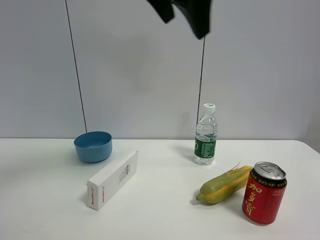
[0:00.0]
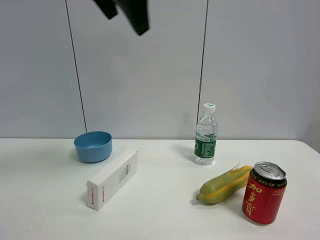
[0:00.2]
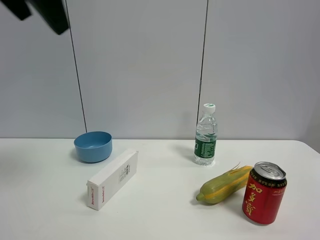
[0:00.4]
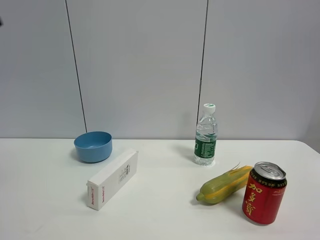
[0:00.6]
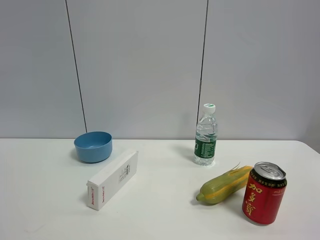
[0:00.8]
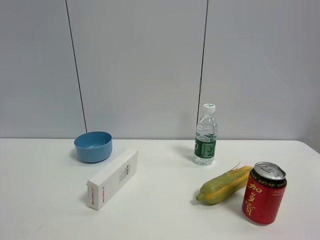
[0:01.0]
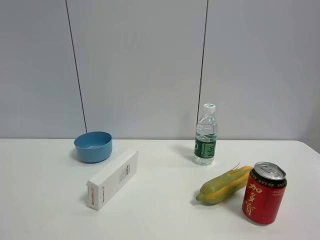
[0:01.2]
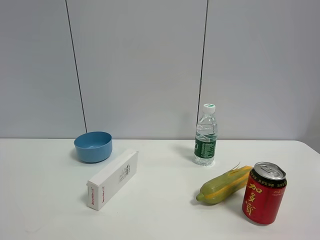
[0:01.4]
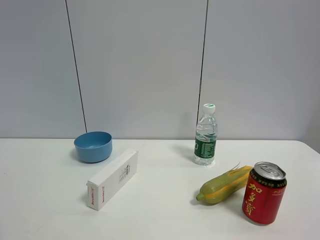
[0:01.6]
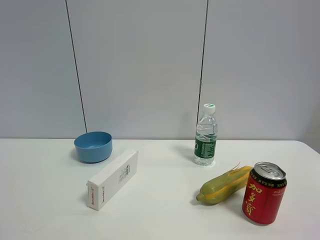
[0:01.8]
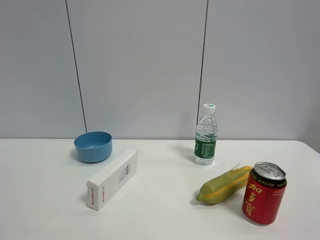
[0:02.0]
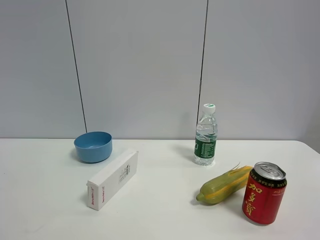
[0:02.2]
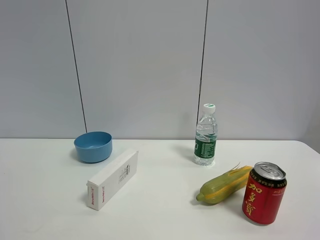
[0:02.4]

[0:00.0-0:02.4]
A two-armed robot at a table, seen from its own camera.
Task of the whole recording: the gripper move the object.
0:00.0 to 0:01.2: The left gripper goes approximately 40 cm backward and to the left.

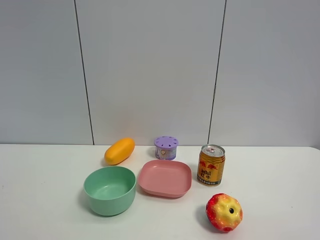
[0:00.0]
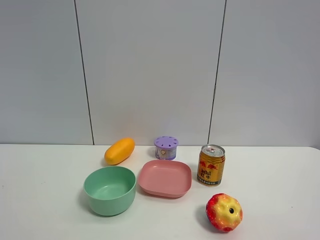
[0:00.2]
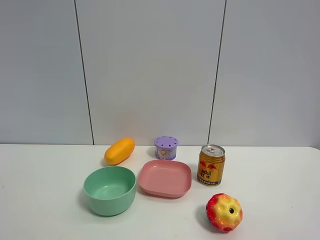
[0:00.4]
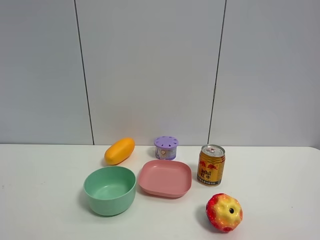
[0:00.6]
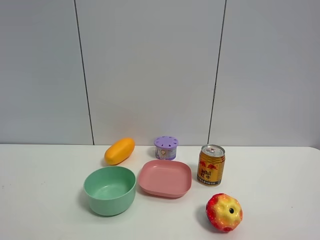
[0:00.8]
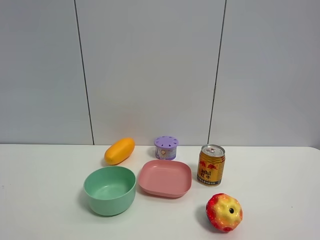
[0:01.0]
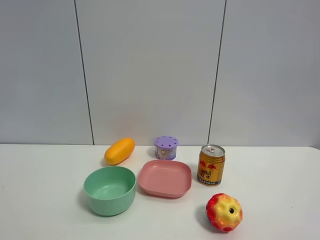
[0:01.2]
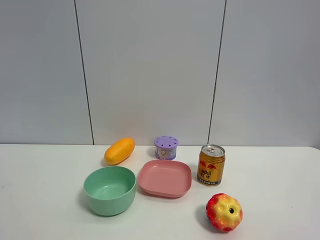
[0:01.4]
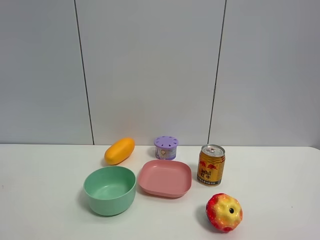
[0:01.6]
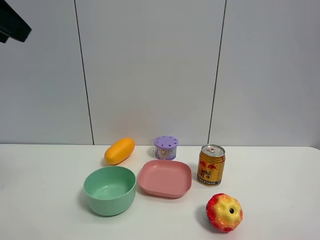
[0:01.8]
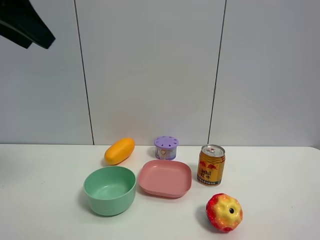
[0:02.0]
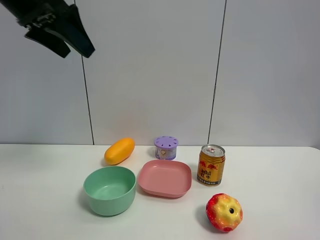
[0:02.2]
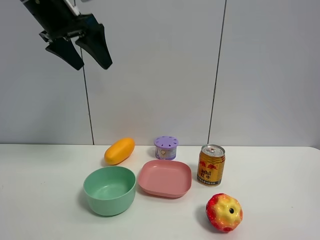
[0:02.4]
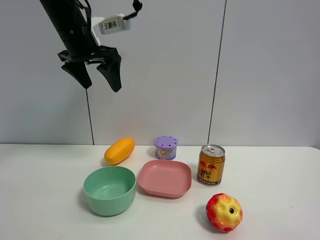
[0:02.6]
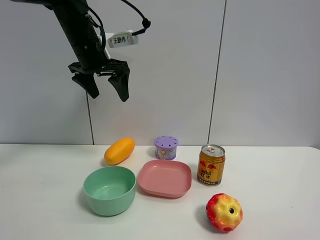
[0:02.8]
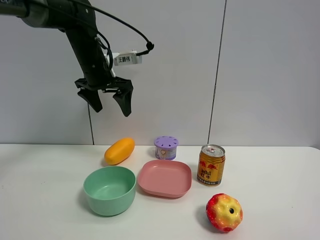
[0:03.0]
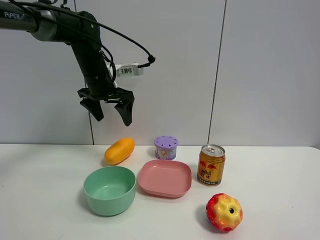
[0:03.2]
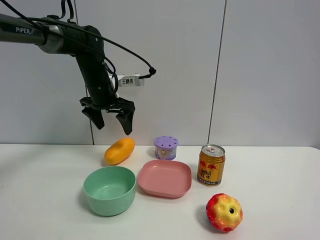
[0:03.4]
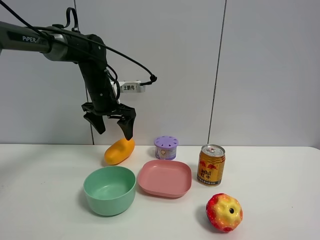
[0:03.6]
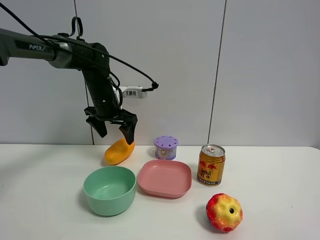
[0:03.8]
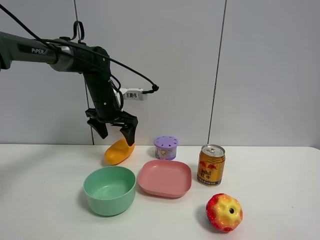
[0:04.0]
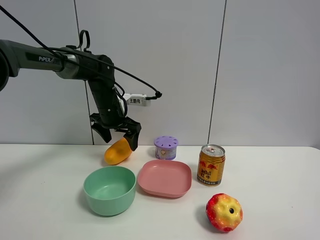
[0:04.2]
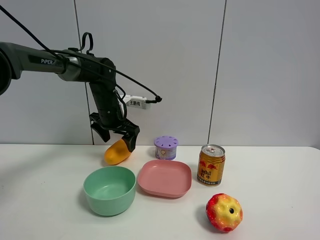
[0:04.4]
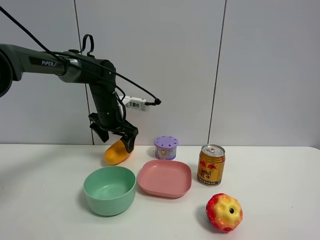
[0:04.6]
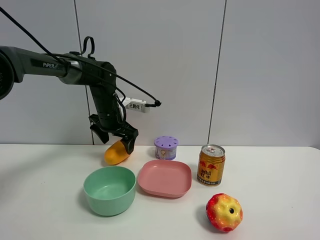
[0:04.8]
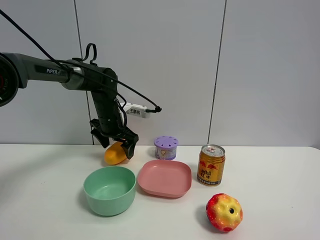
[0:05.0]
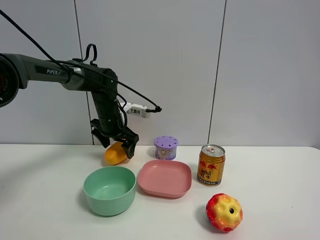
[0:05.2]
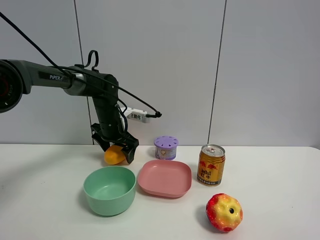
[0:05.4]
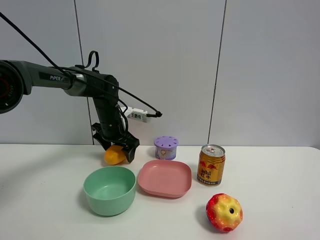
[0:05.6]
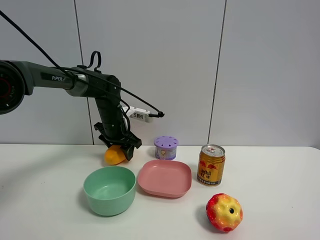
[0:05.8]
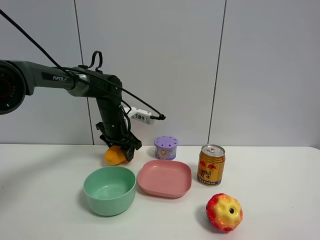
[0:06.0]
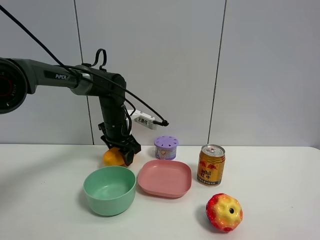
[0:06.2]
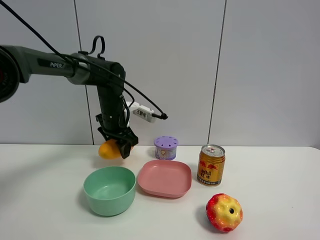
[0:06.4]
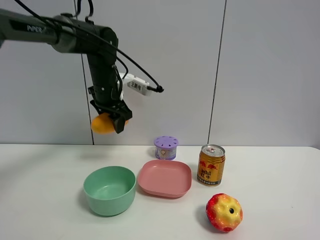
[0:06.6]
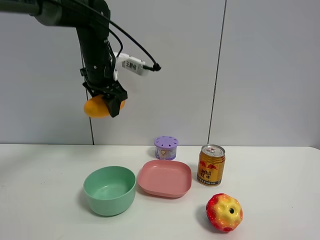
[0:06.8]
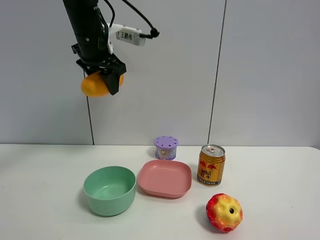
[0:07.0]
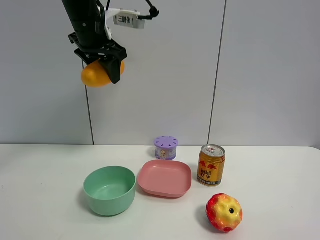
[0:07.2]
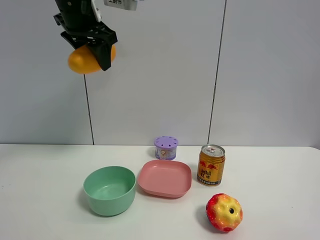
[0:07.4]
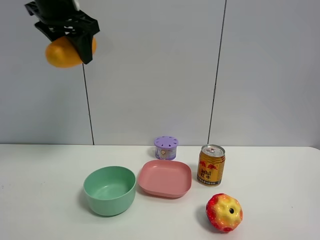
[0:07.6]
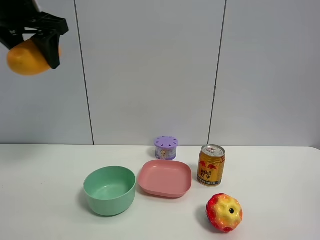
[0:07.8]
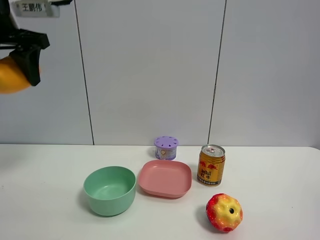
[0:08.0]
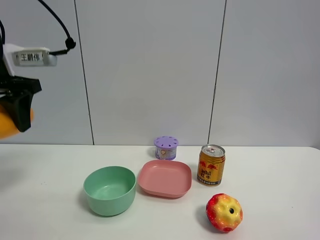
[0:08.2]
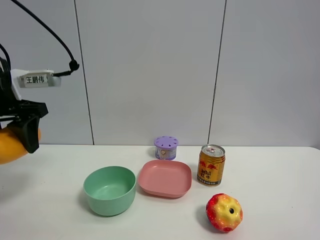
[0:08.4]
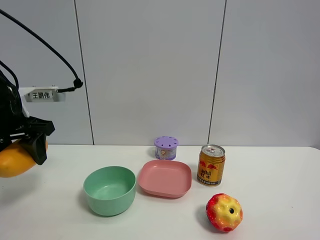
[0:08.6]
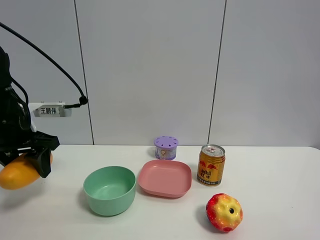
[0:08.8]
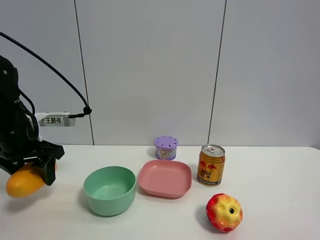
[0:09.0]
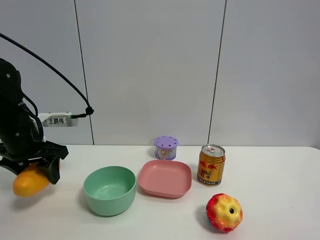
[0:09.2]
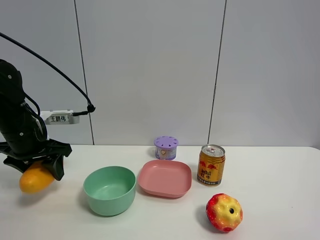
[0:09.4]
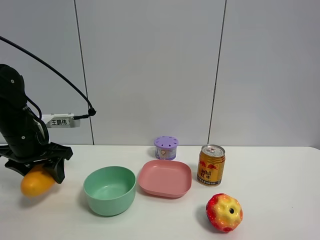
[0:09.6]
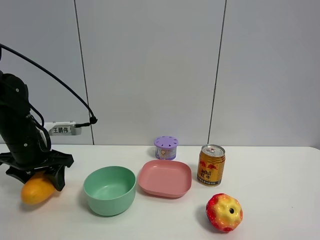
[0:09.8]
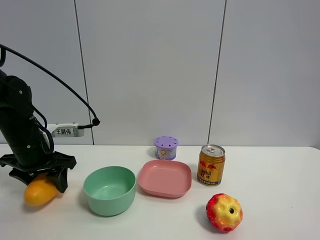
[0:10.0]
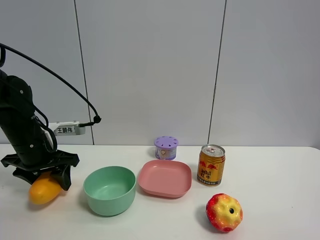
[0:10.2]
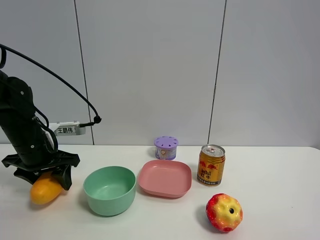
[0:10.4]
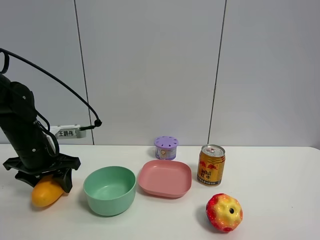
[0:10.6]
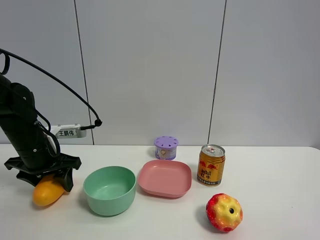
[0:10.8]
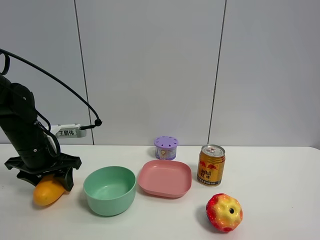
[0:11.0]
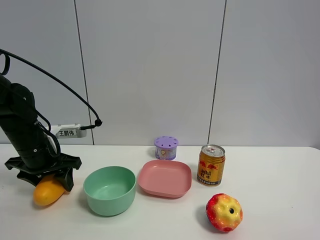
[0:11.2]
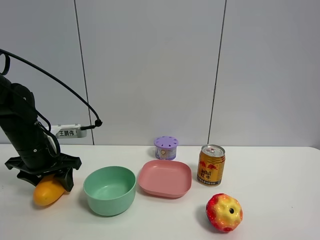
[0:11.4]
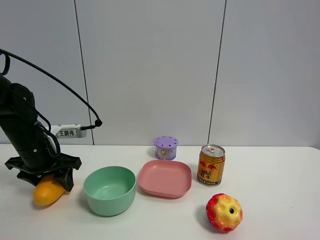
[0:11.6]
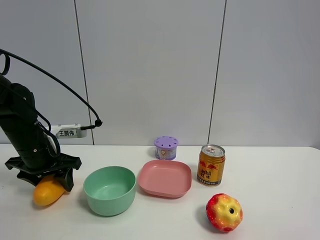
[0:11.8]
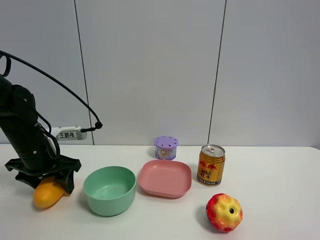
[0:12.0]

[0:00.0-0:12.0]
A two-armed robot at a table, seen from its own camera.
Task of the whole recording: the gripper move the object.
Step, 0:00.0 to 0:05.8: Grasp the mango with the left gripper.
0:01.6 to 0:03.0: The left gripper heads forward, downward and to the right, covering roughly 35 cm, and opens its fingers.
0:03.0 to 0:04.4: The left gripper goes approximately 10 cm downward.
0:04.4 to 0:06.0: The left gripper closes its fingers.
0:06.0 to 0:07.6: The left gripper is displaced upward and backward by some 30 cm.
0:07.6 to 0:09.0: The left gripper heads downward, covering roughly 25 cm.
0:09.0 to 0:10.4: The grippers move only a little.
0:10.4 to 0:12.0: Neither gripper changes place.

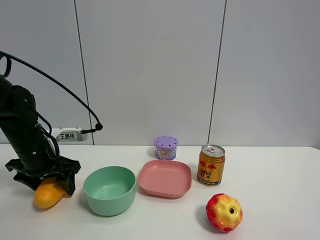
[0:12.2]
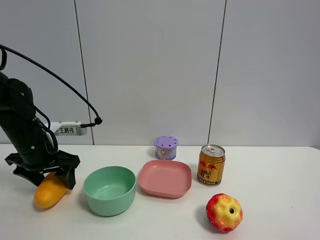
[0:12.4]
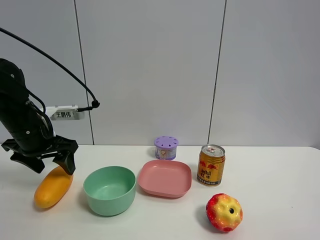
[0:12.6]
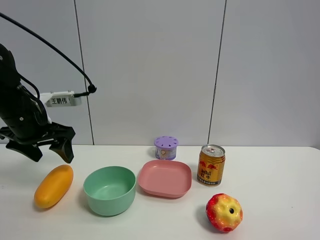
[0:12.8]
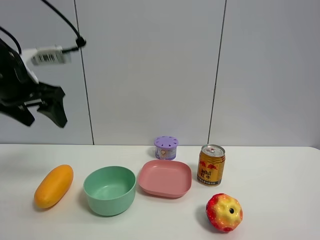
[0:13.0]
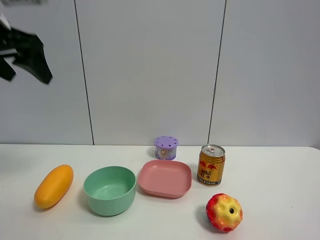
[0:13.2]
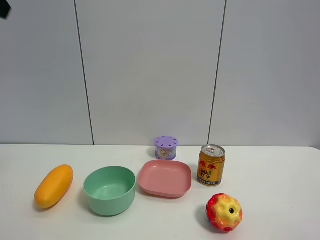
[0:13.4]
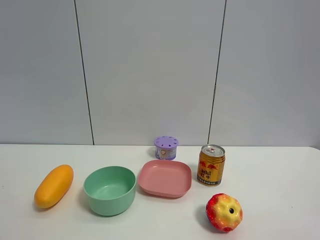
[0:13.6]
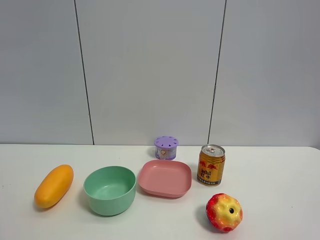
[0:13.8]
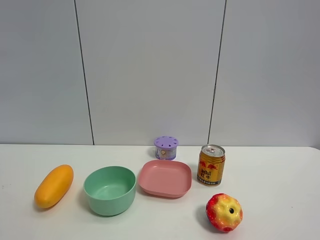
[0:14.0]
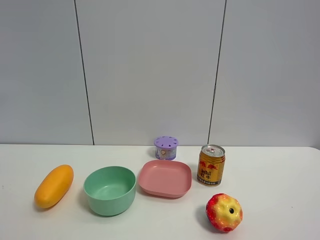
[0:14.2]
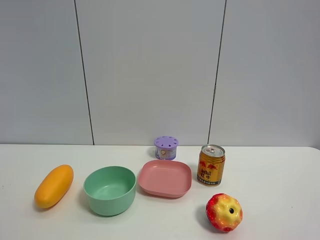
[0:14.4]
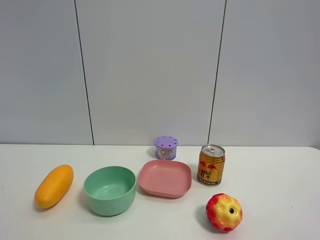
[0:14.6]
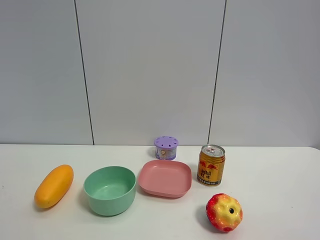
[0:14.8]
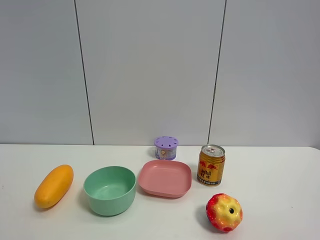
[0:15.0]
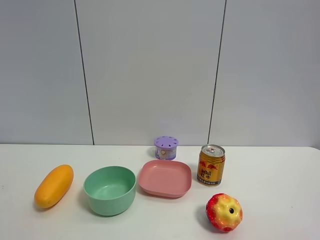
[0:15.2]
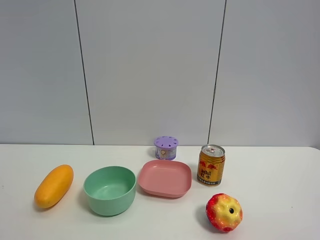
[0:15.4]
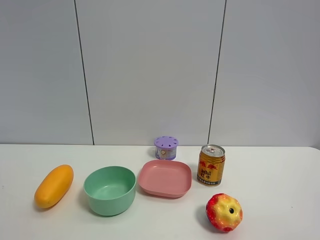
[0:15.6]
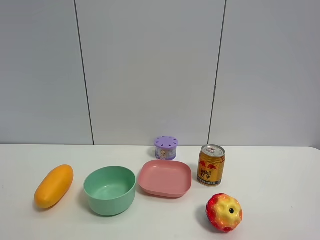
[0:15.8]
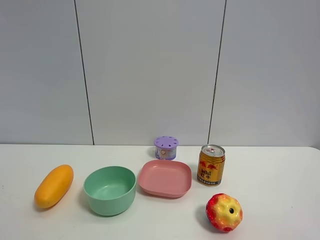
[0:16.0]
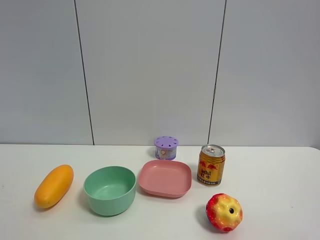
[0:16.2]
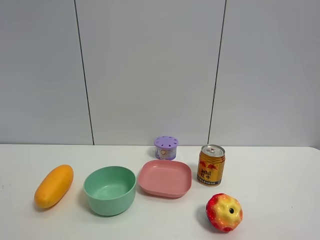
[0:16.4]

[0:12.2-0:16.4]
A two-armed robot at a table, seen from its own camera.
Task of the whole recording: the gripper move the object.
0:12.2 to 0:13.6: The left gripper heads upward and backward, covering approximately 40 cm, and opens.

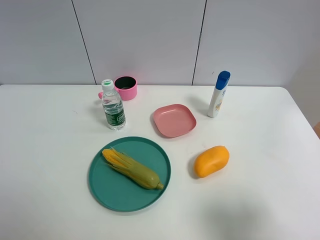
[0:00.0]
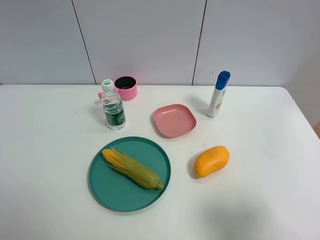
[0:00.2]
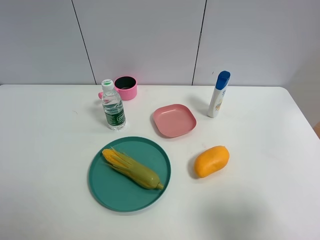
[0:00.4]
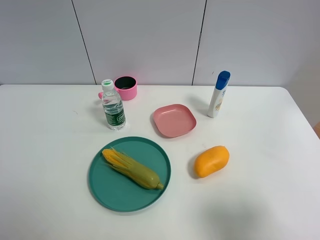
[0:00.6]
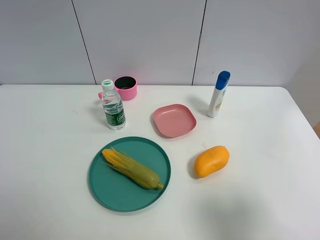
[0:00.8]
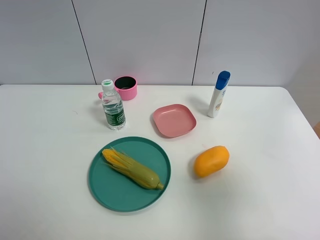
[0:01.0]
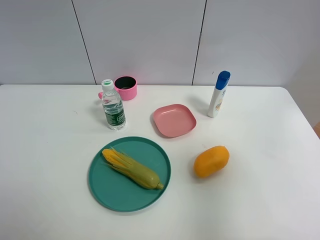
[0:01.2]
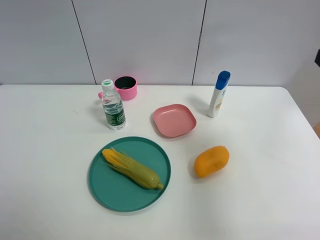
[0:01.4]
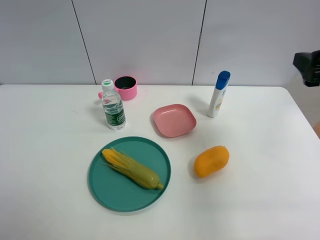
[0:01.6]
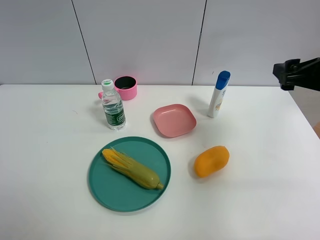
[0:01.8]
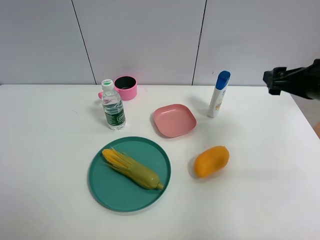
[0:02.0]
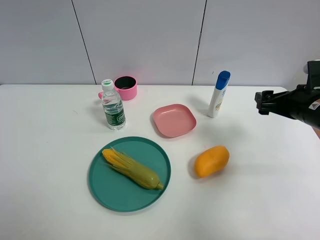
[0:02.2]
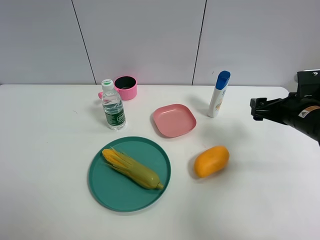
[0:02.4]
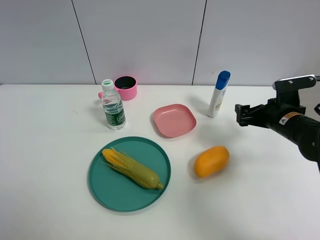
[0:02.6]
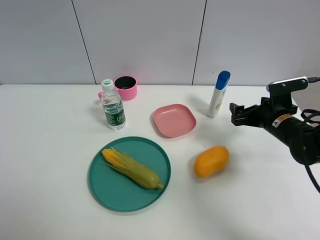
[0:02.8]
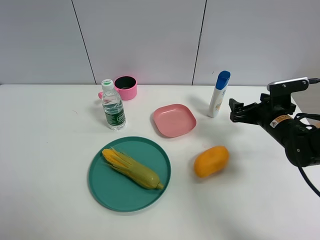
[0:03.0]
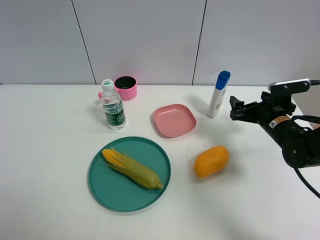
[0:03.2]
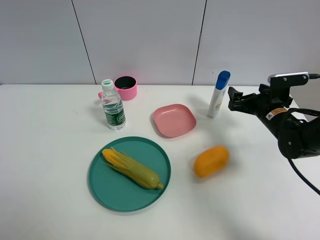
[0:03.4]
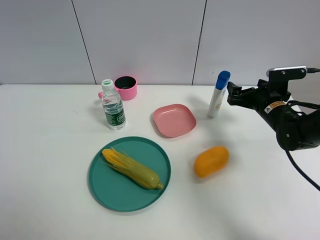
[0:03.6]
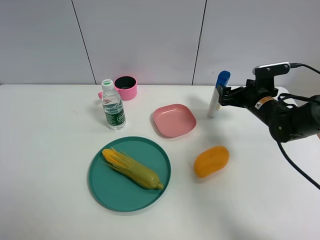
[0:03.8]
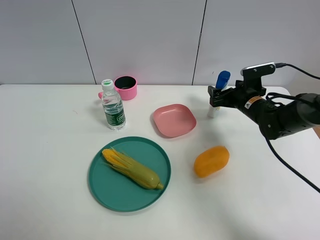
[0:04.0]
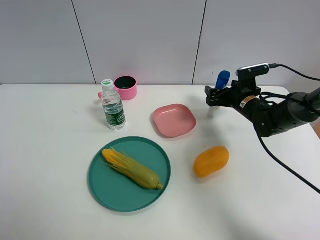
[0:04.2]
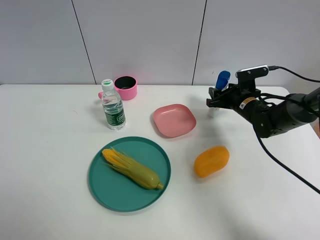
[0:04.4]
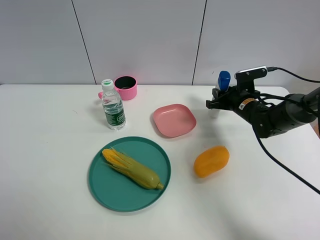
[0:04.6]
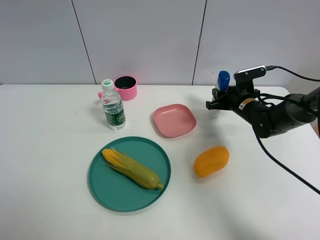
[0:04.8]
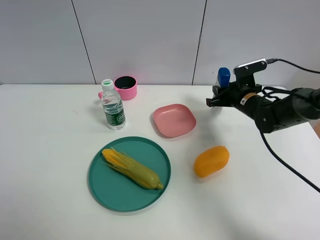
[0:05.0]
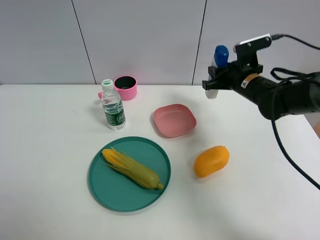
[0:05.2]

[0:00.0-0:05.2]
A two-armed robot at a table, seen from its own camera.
Task of the whole recording: the gripper move the object.
Step, 0:00.0 to 0:04.4: Grasp the shampoo with the right gripper.
0:00.0 to 0:01.8: The right gripper is displaced forward by some 25 cm.
0:01.8 to 0:03.4: The right gripper heads downward and forward, covering roughly 15 cm.
0:03.4 to 0:05.2: The right gripper heads to the left and upward, covering roughly 10 cm, and closes its fingers.
